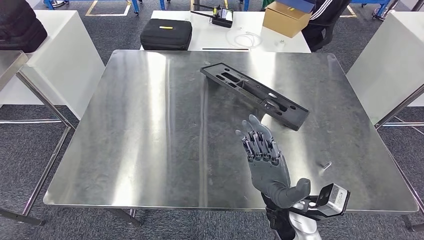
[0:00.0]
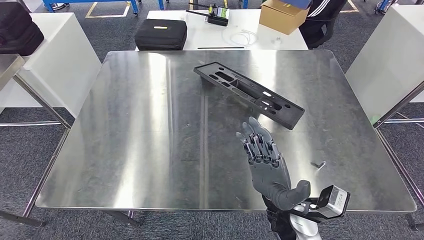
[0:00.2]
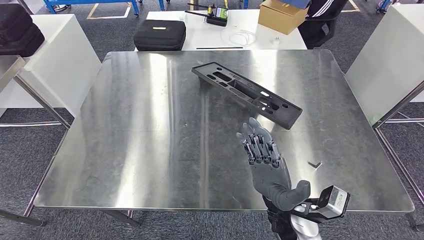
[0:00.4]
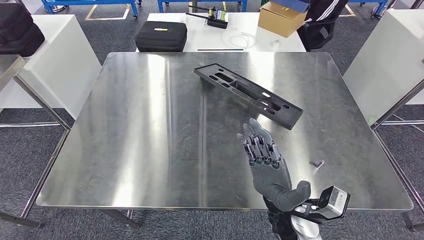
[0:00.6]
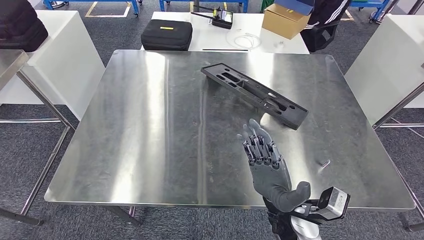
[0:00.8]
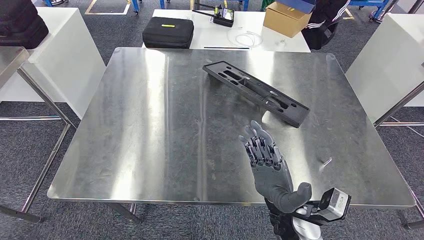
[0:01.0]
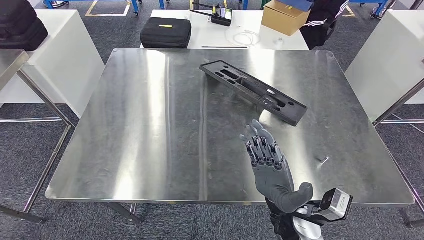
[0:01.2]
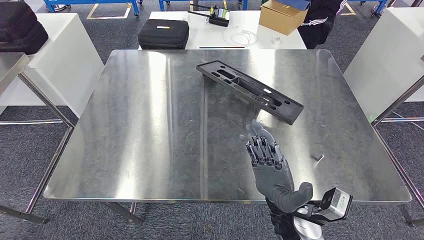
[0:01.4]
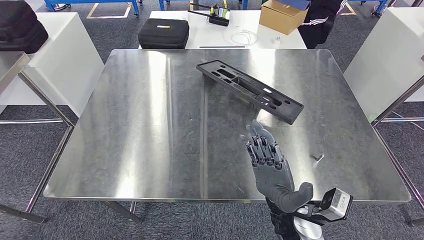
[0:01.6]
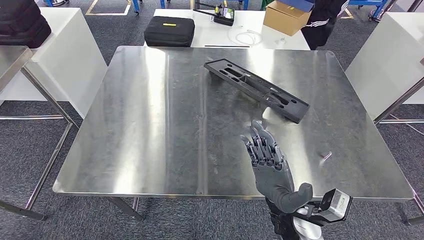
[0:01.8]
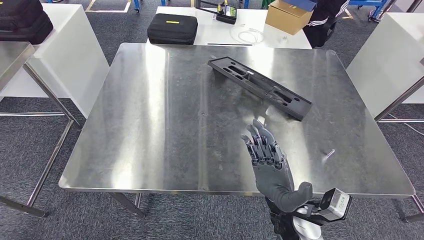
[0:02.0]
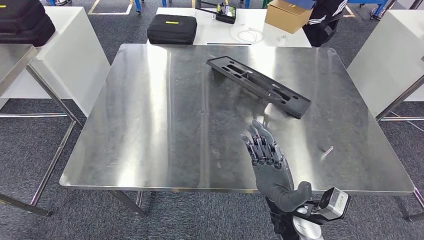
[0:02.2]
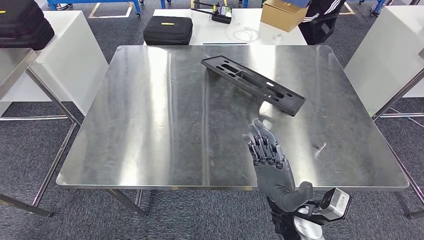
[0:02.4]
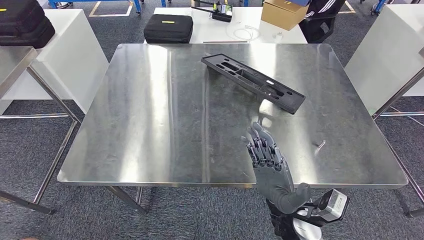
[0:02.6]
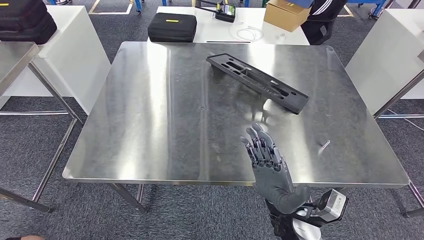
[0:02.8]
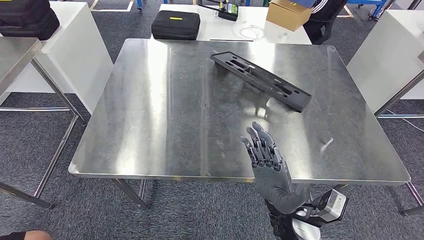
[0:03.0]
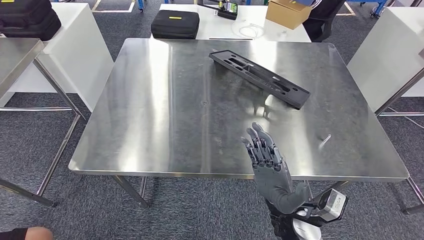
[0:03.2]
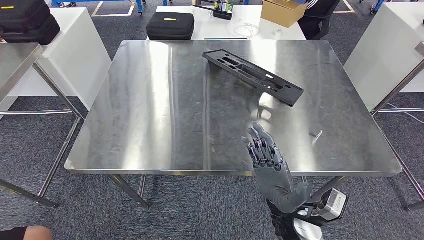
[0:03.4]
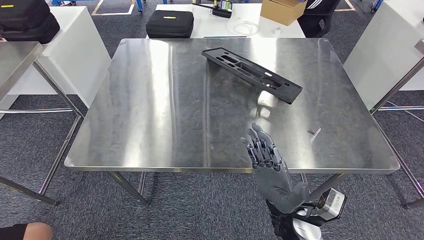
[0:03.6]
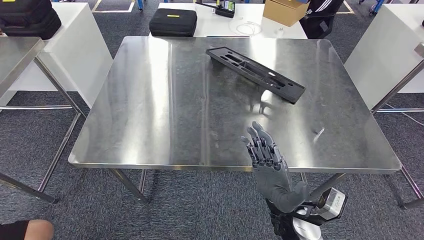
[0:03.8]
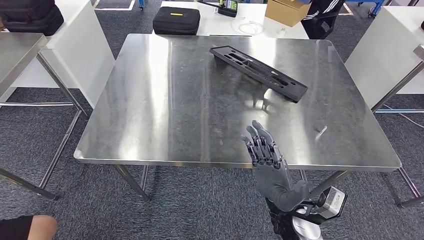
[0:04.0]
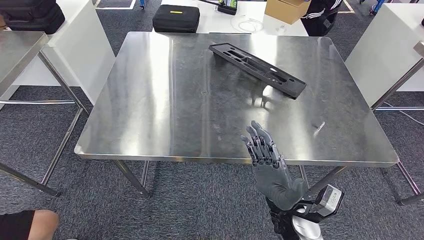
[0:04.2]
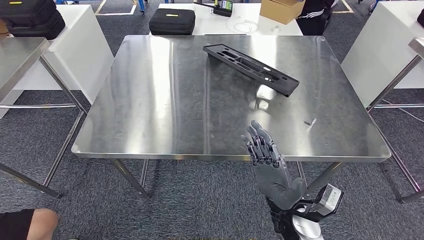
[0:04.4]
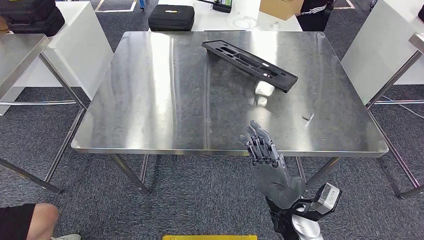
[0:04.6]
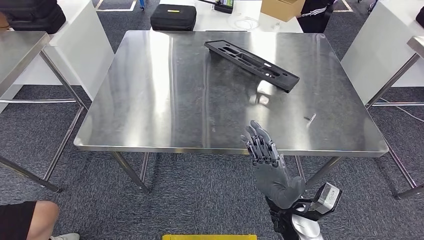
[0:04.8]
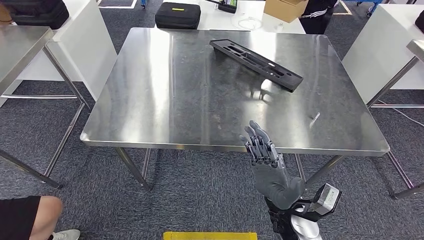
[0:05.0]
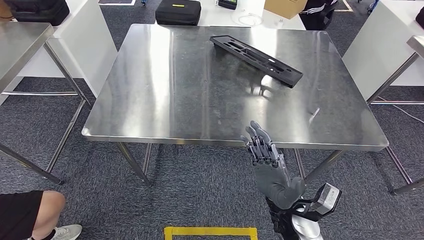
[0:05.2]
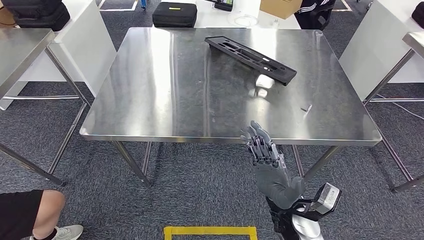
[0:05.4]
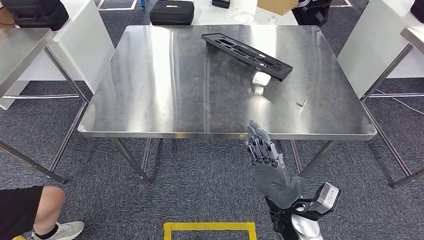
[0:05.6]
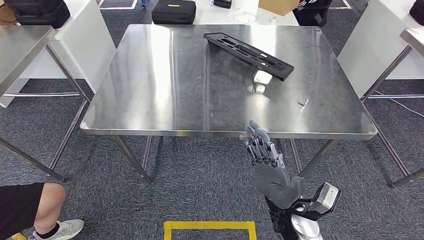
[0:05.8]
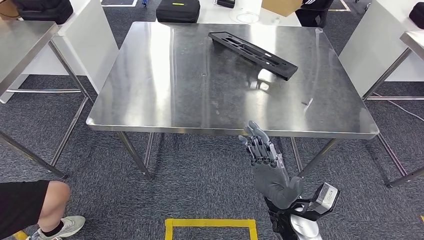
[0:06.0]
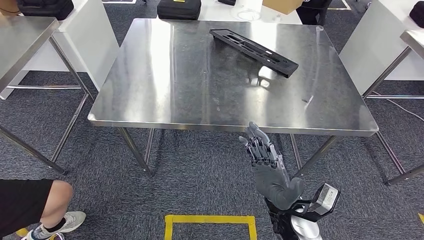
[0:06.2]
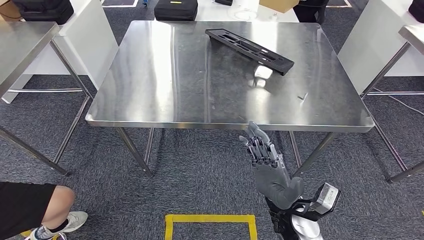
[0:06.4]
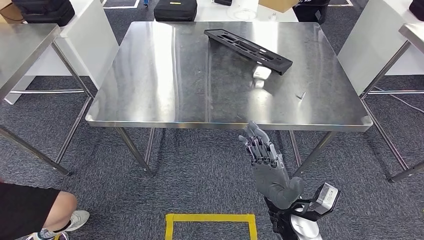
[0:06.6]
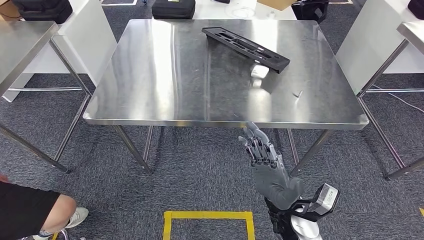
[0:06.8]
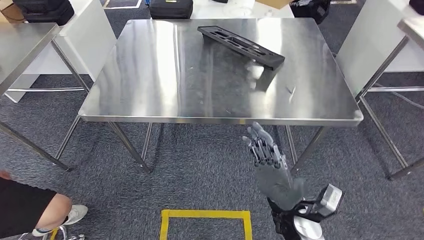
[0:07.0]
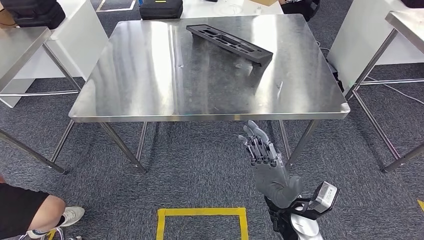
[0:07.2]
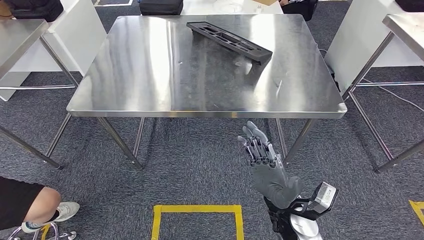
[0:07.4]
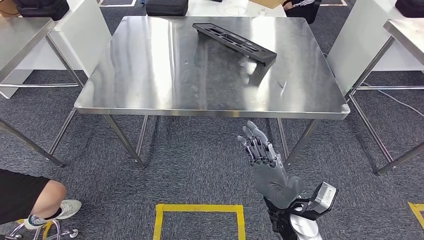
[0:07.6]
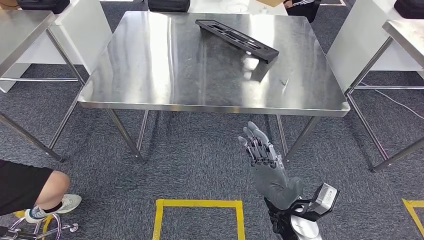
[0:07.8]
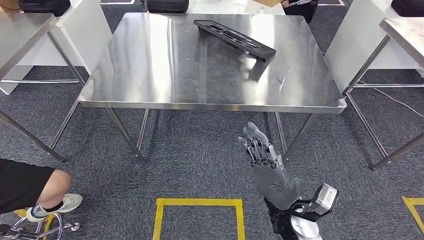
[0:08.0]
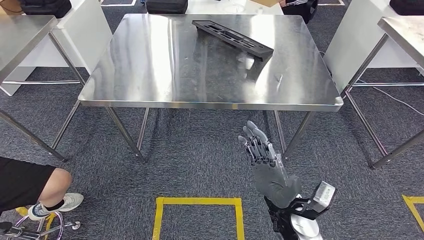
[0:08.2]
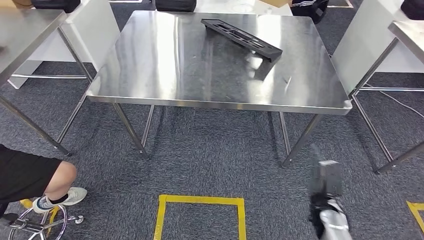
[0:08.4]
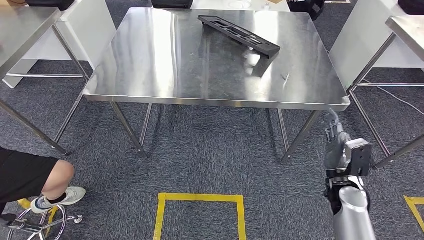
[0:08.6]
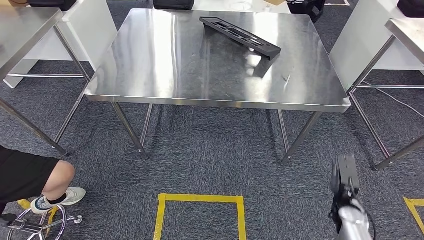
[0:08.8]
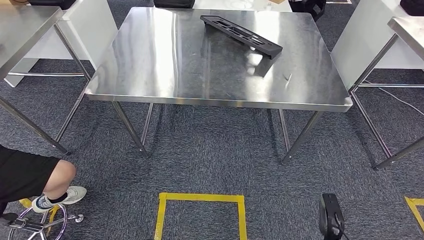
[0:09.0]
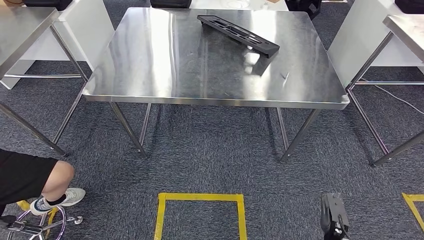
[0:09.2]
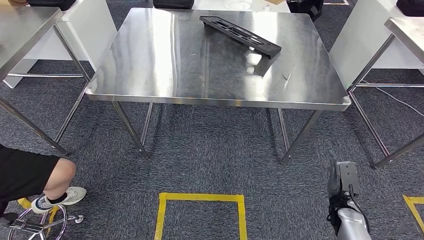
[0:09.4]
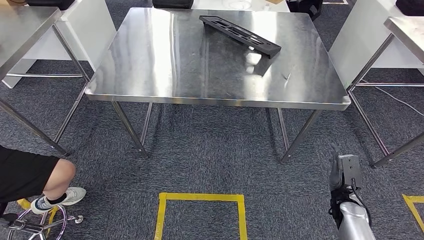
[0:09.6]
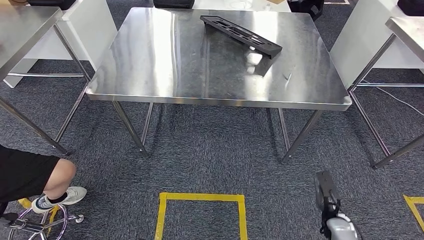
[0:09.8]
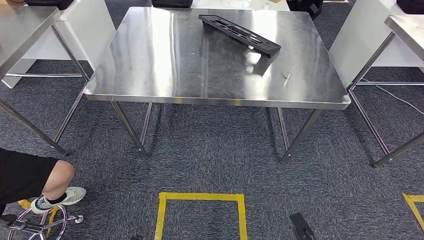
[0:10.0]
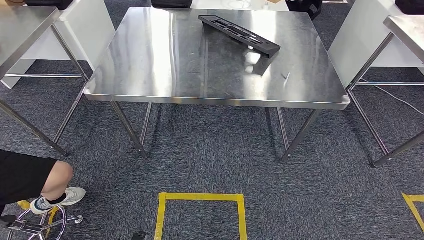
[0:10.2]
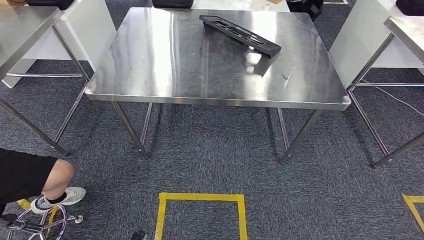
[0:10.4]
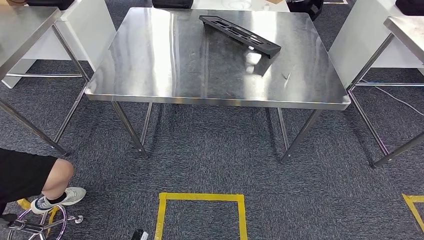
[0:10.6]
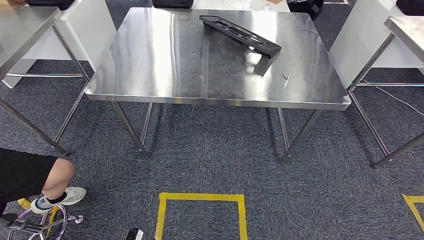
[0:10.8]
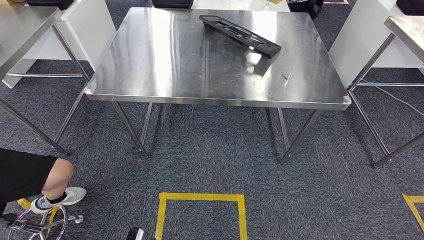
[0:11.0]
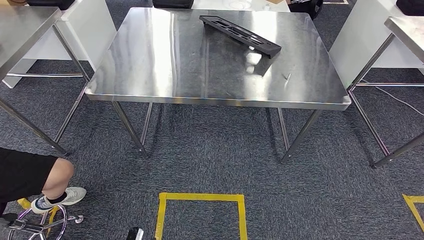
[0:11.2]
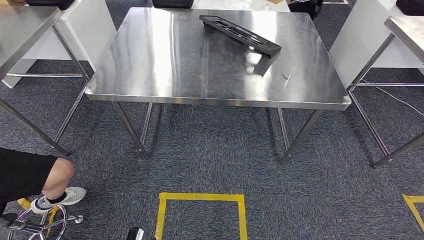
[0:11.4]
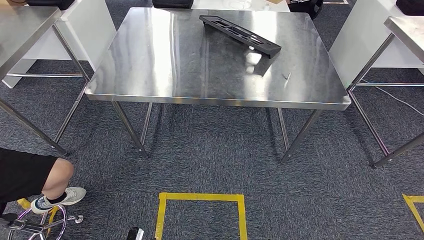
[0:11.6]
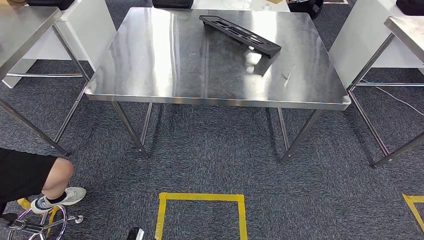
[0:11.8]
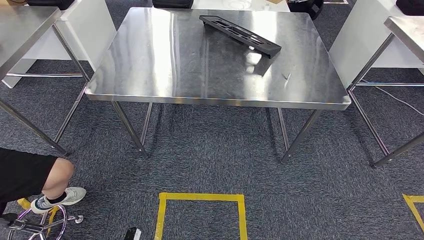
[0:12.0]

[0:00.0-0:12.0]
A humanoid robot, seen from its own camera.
0:00.0 to 0:01.6: The hands stay close to where they were, moving slightly.
0:09.0 to 0:10.4: The left hand ends up roughly 5 cm from where it was. The right hand shifts some 15 cm backward, to the left and downward.

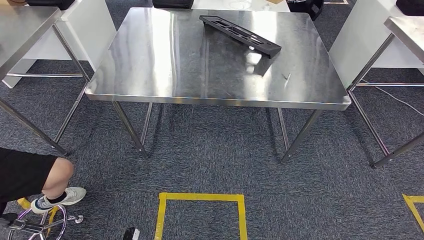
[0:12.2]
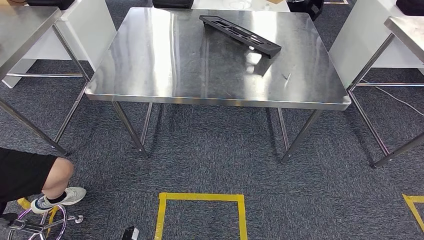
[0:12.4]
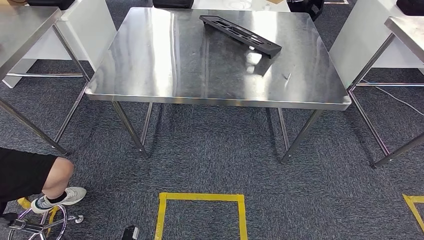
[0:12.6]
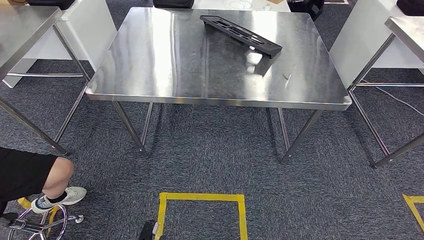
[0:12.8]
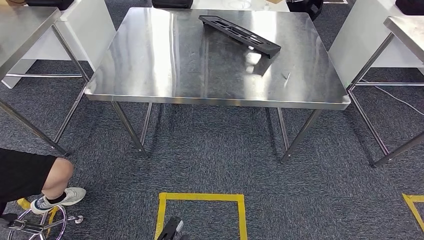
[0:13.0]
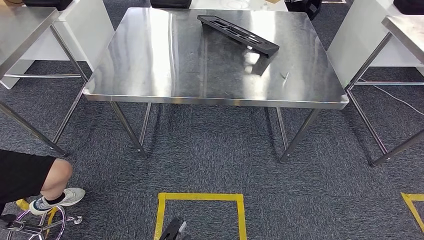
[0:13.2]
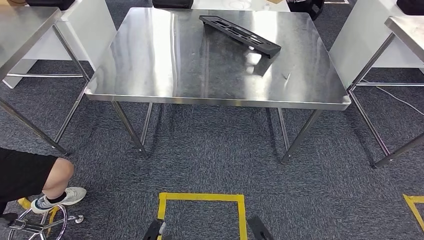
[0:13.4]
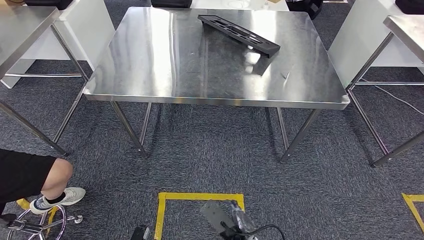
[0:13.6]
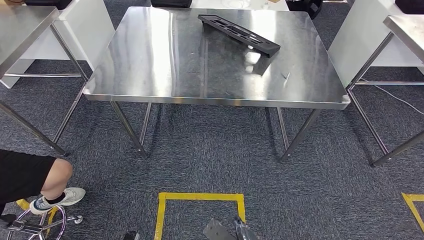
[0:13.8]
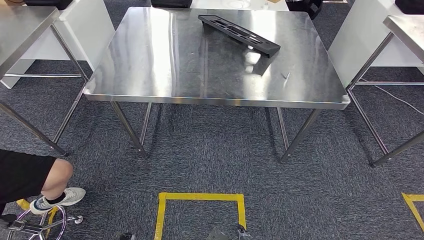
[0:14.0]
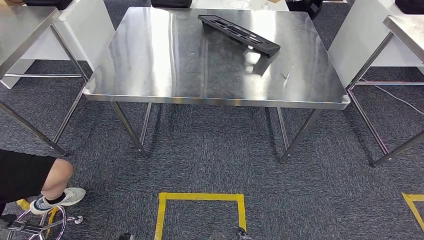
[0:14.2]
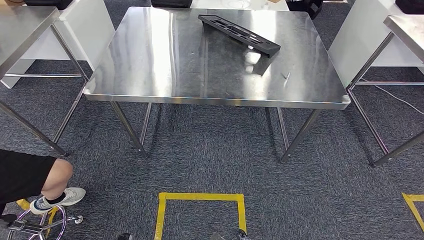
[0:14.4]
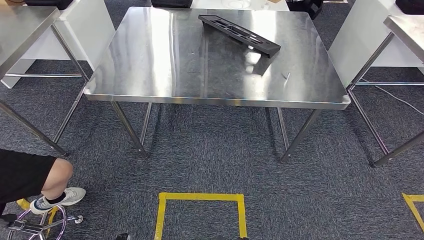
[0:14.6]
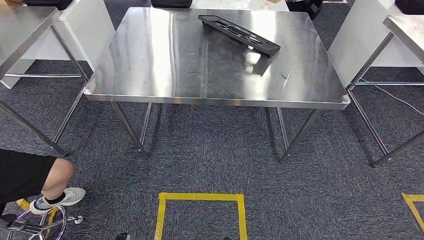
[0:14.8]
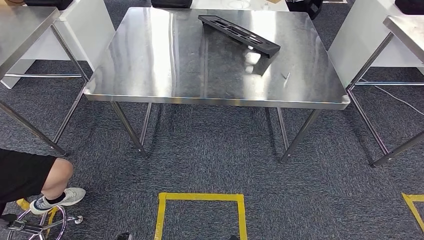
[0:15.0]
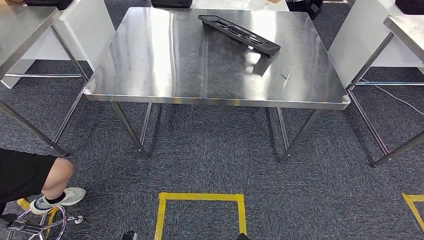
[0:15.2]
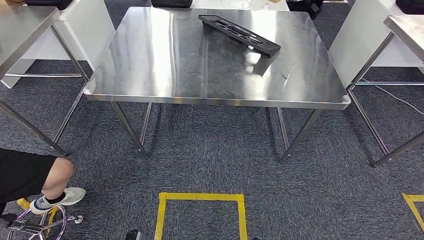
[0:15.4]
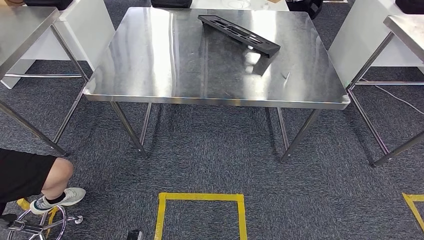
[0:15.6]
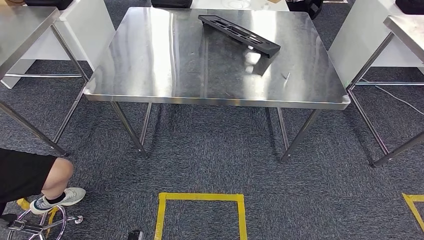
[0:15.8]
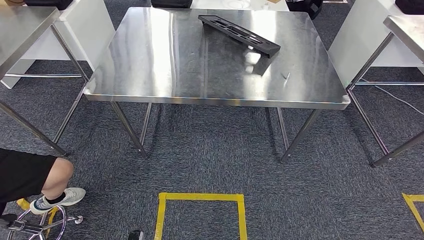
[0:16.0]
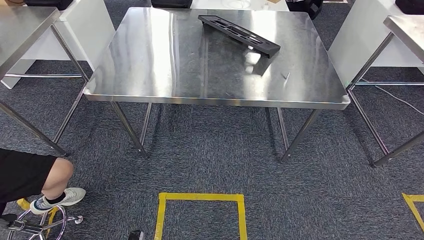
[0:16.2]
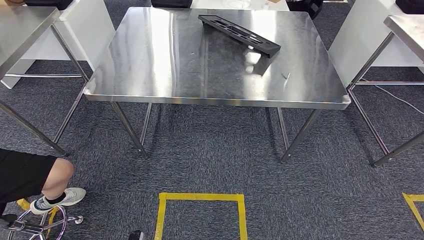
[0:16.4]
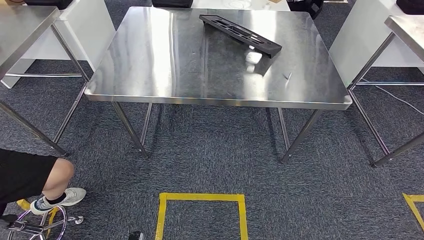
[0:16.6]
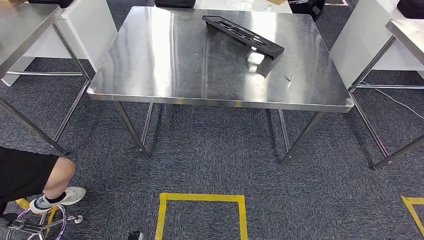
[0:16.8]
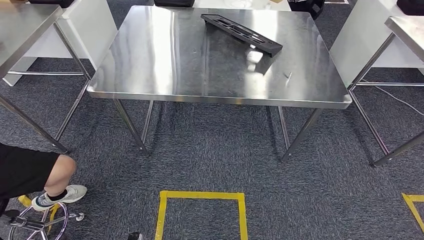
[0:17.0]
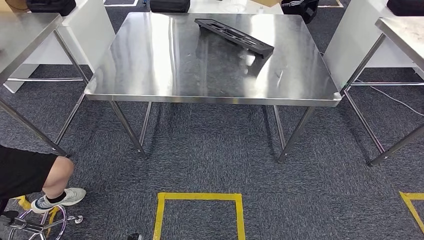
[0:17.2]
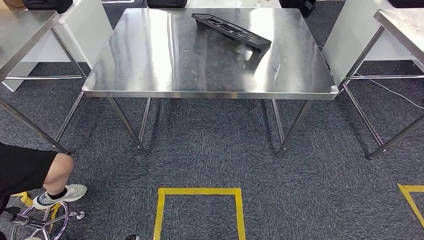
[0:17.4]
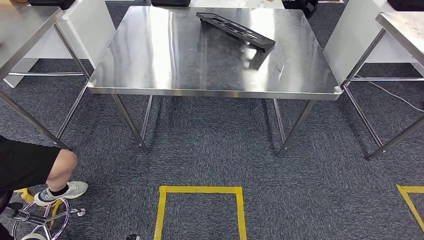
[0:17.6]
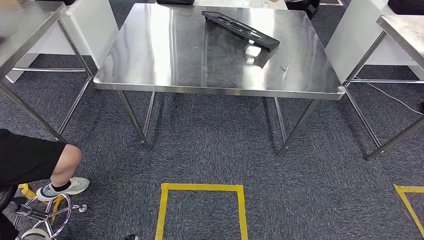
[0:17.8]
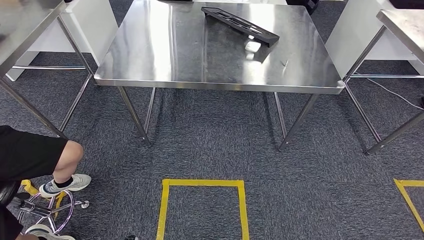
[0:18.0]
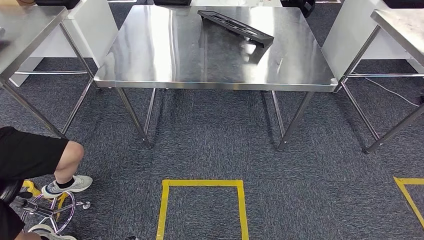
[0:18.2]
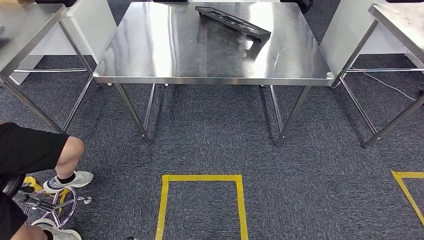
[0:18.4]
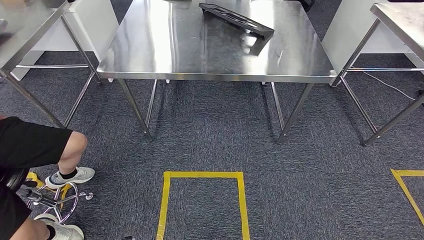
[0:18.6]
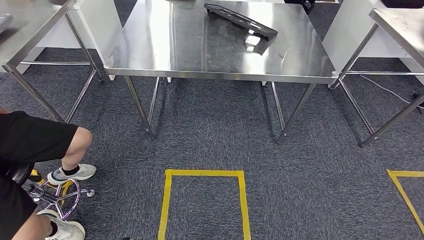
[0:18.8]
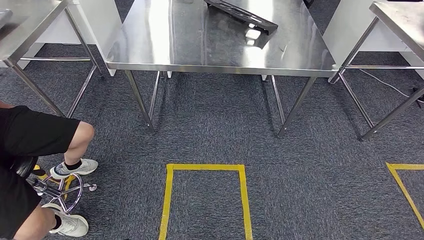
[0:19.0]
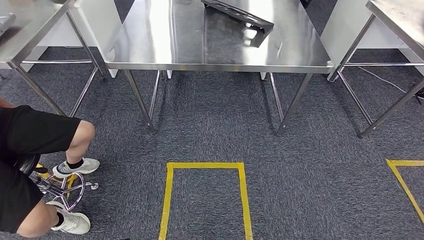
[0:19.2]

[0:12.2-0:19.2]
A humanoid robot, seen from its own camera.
0:12.2 to 0:13.6: The right hand moves upward and to the left, approximately 20 cm. Meanwhile the left hand moves approximately 10 cm to the right and comes back.
0:13.6 to 0:15.0: The right hand travels downward, to the right and backward by some 15 cm.
